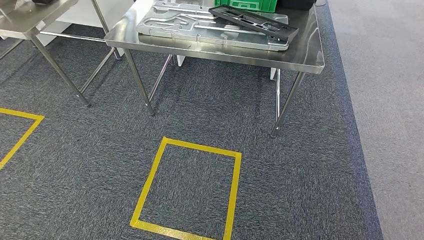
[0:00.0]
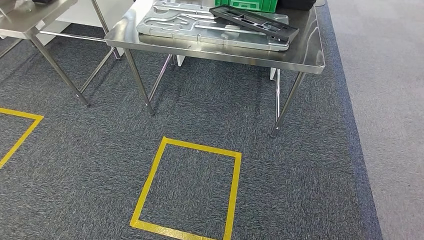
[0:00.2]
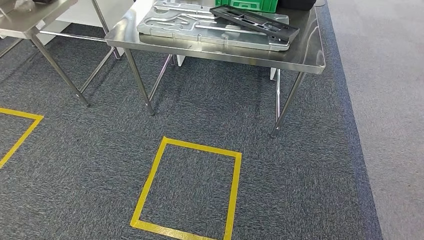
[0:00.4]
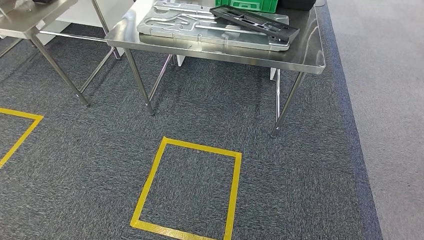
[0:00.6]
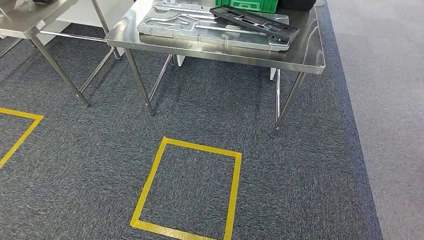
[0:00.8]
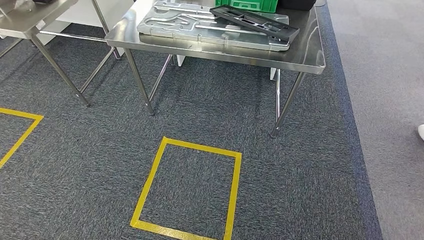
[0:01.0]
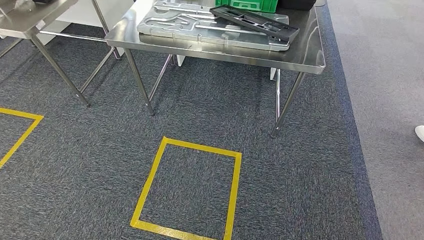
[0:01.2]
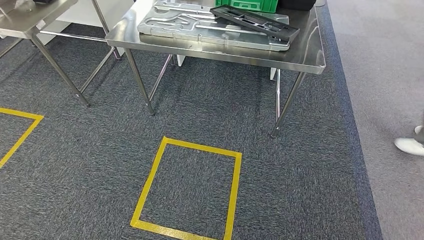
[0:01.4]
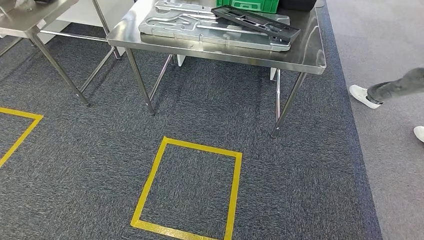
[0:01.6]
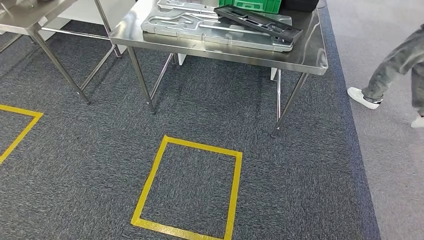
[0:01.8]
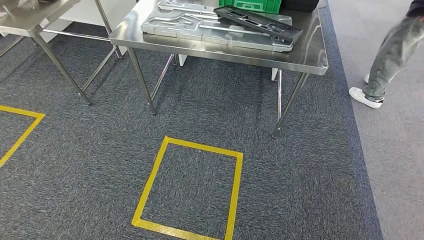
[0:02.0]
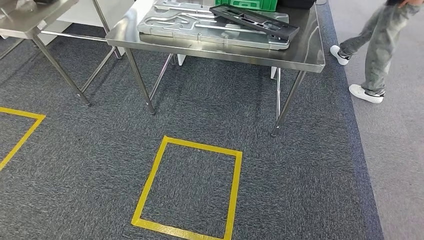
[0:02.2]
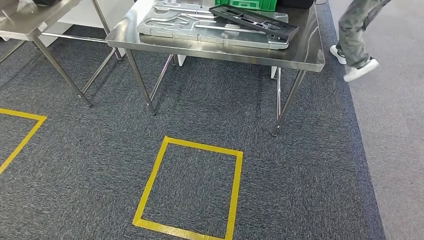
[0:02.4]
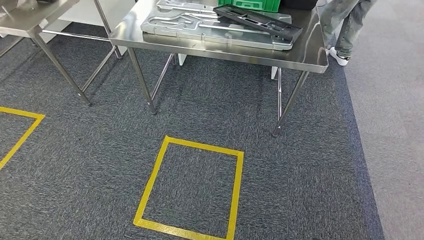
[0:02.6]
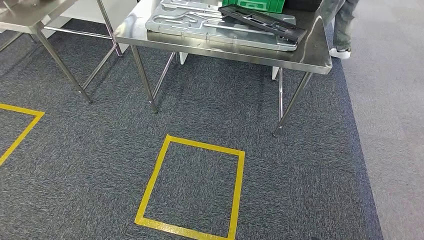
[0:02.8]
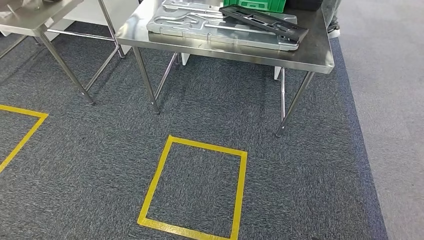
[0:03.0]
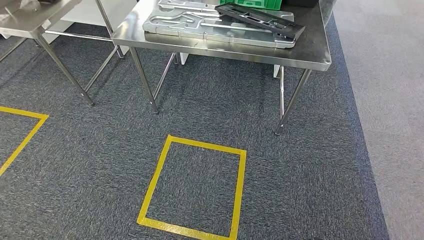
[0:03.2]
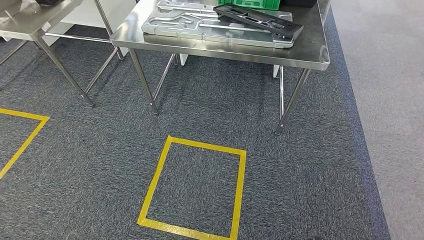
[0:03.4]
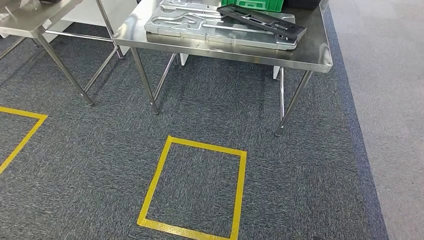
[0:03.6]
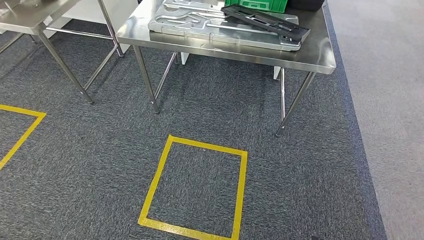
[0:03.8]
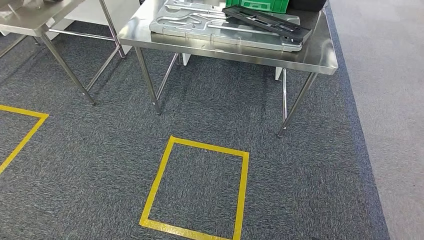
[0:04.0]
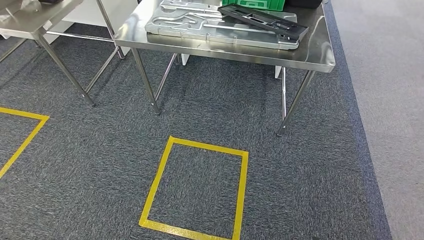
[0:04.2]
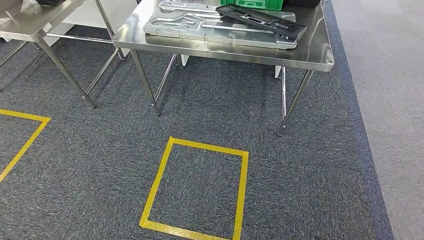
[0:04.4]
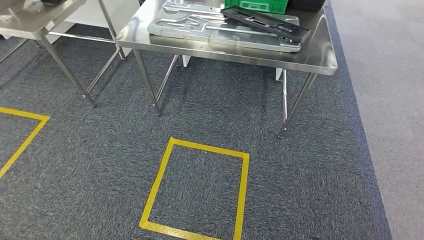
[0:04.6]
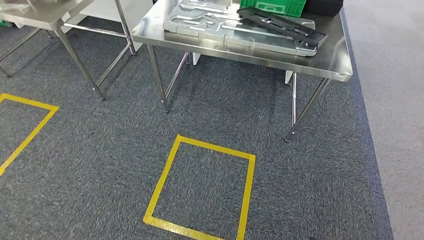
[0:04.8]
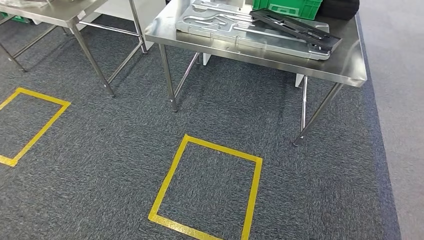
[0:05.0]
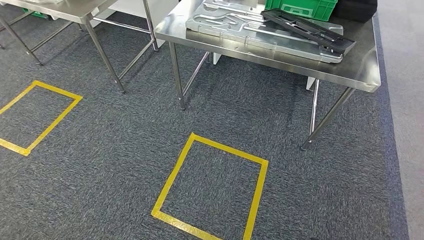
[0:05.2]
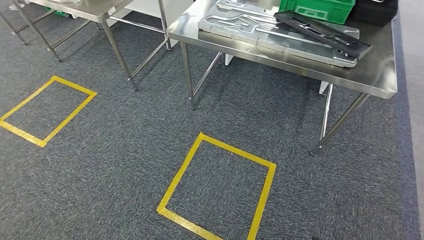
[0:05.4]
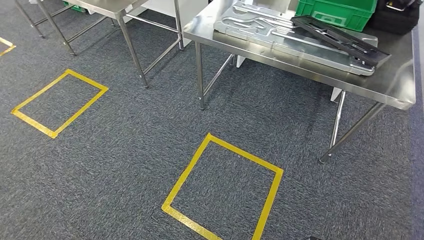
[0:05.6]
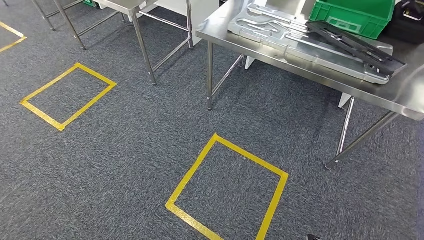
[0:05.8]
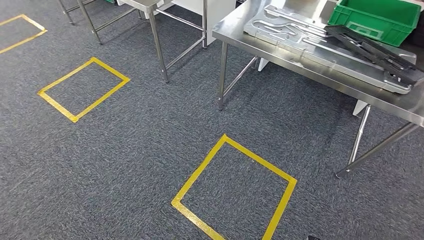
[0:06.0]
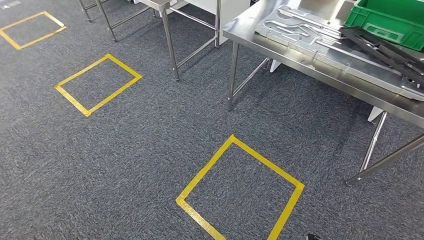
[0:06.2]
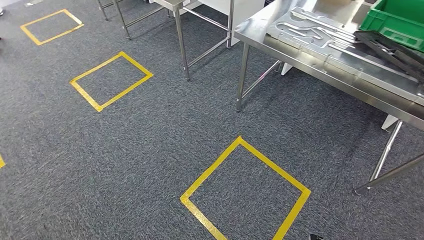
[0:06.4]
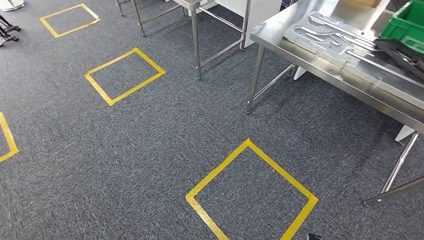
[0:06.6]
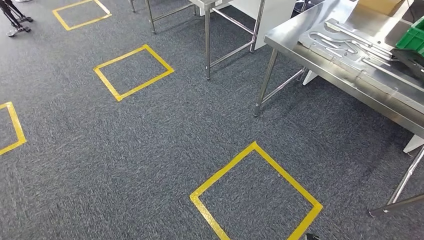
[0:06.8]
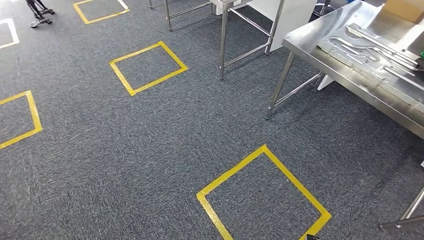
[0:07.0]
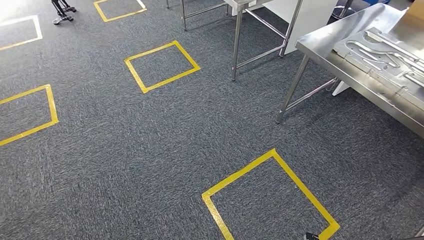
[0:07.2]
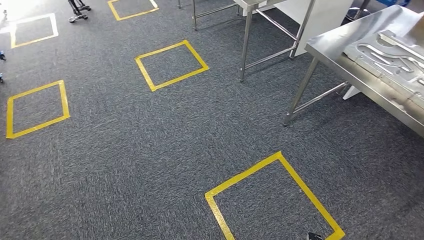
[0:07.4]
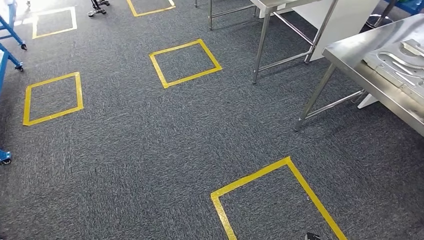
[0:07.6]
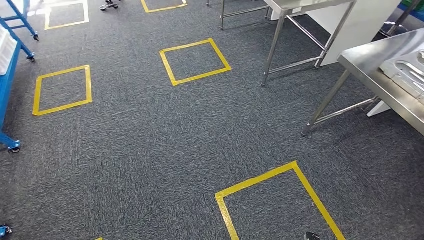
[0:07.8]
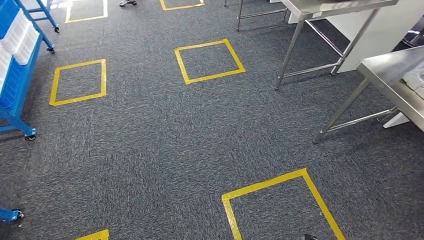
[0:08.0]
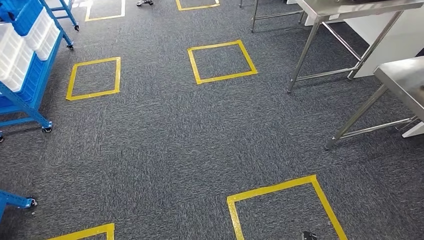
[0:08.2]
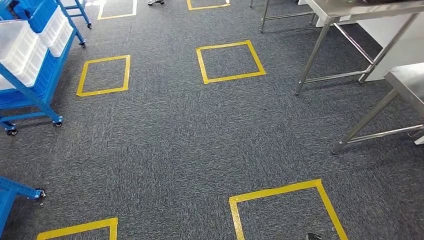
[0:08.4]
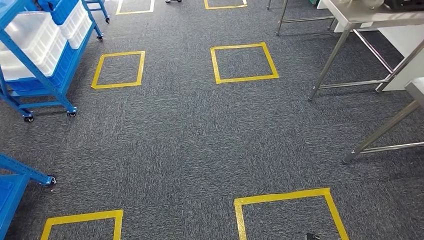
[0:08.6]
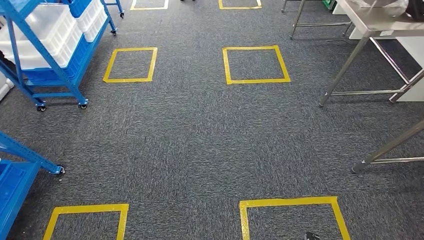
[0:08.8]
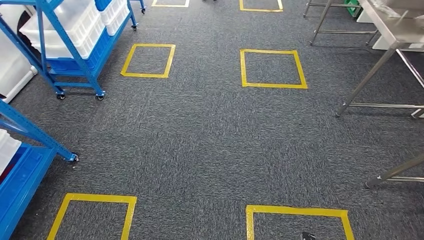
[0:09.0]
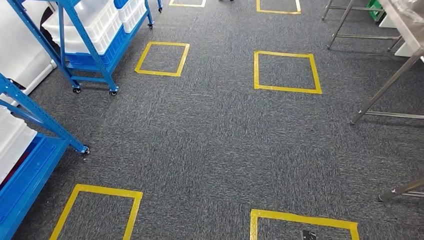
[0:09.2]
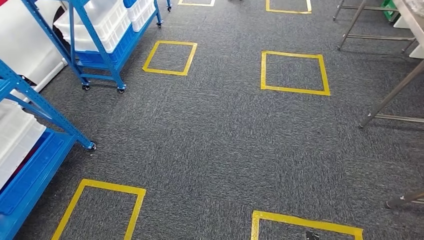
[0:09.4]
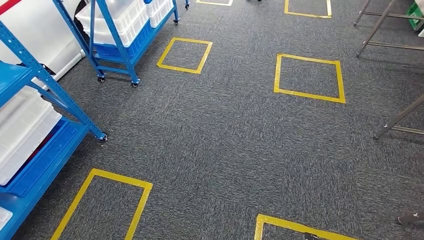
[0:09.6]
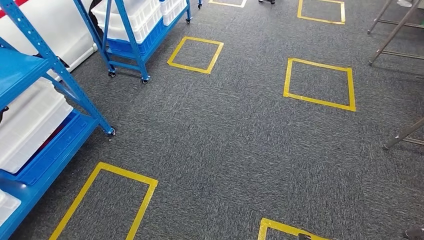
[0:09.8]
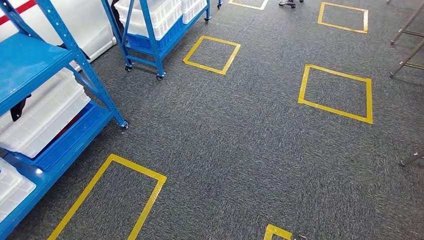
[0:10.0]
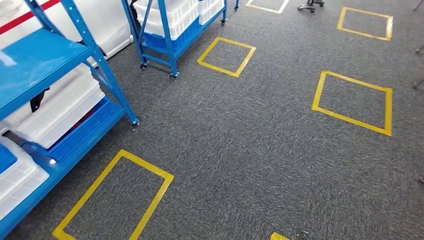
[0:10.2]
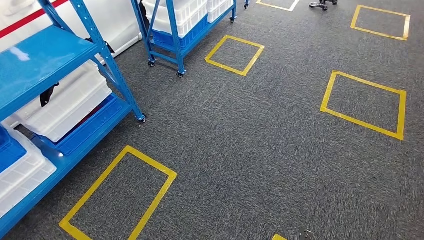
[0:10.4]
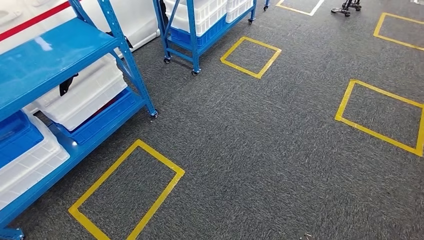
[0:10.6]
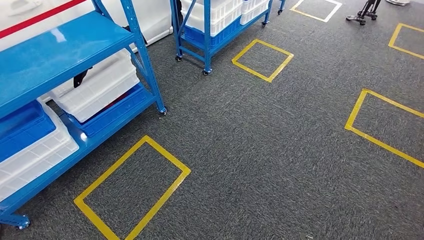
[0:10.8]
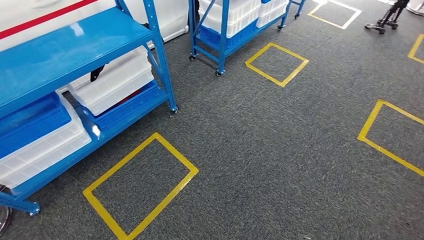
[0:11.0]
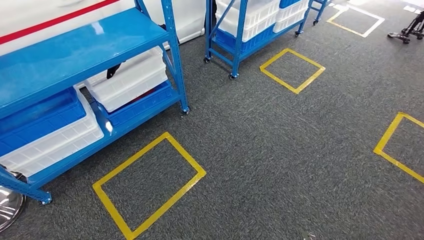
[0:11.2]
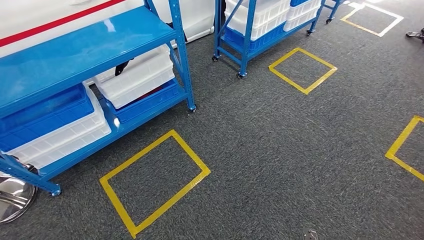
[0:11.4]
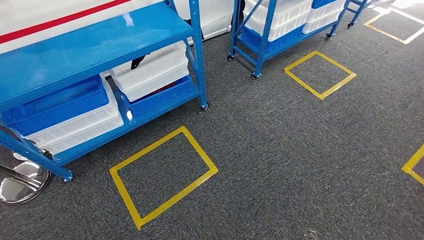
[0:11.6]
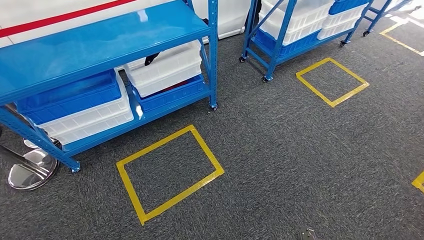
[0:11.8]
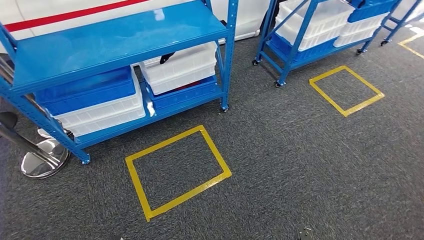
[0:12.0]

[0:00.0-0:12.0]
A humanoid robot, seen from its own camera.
0:00.0 to 0:01.6: The two hands keep their place.
0:01.6 to 0:04.4: Both hands stay about where they are.

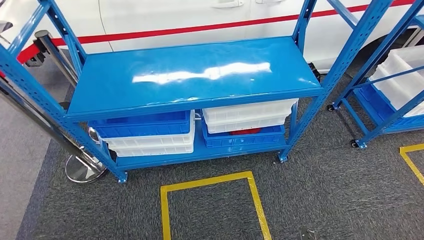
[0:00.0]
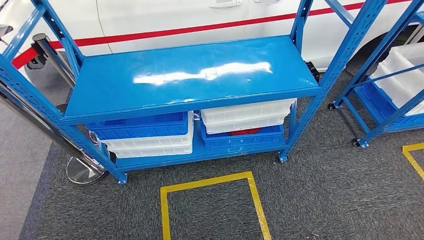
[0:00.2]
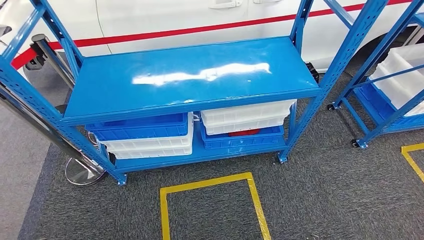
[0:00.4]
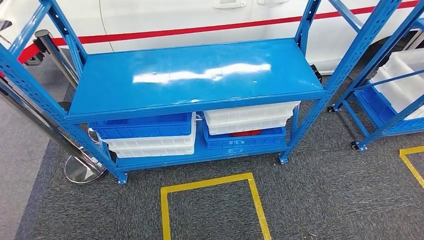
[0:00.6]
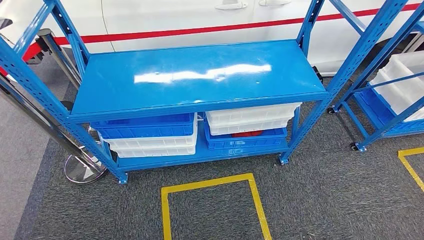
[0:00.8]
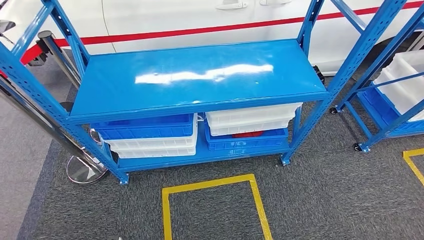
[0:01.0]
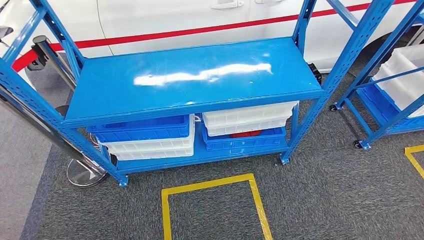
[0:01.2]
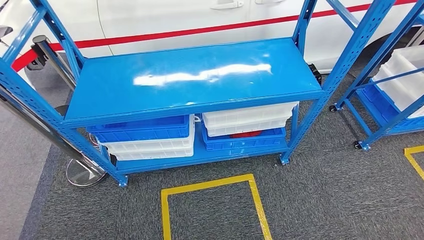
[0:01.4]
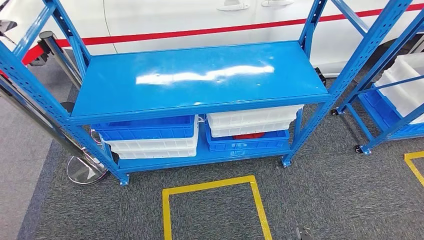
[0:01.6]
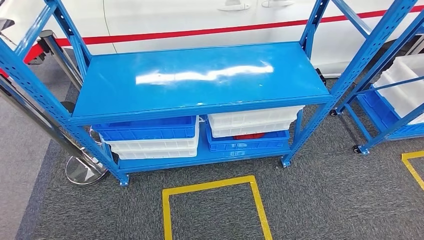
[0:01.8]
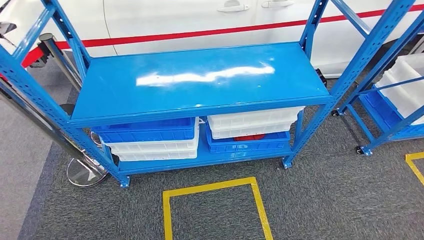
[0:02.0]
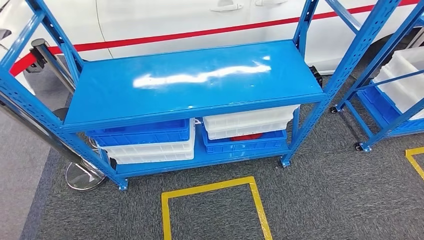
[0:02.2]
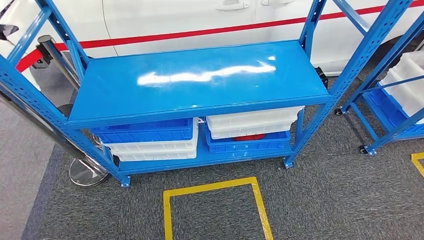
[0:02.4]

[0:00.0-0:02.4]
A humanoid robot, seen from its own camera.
Step, 0:00.0 to 0:02.4: Move to the initial position of the shelf.

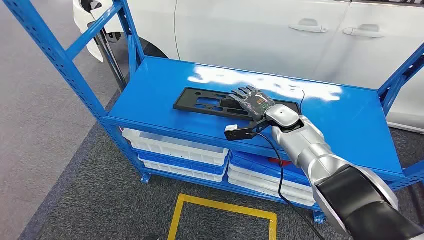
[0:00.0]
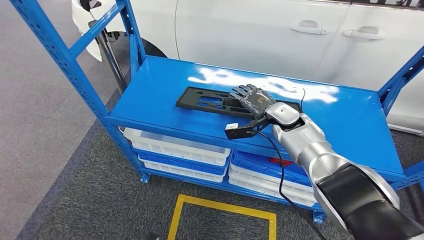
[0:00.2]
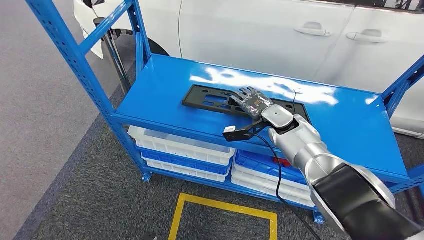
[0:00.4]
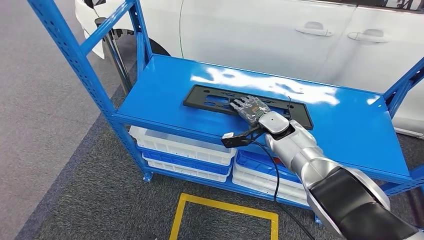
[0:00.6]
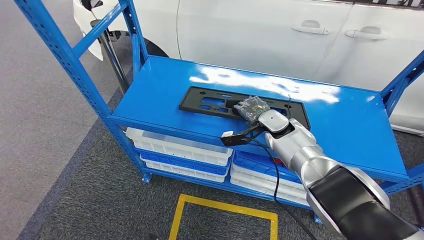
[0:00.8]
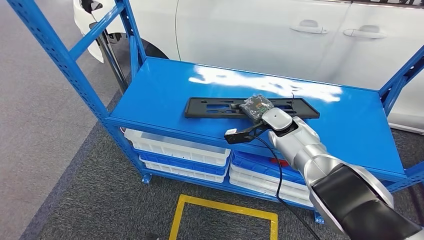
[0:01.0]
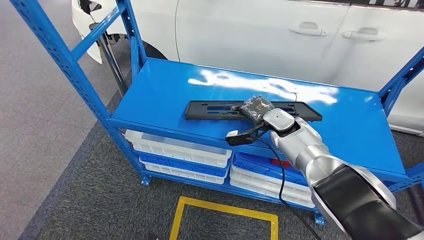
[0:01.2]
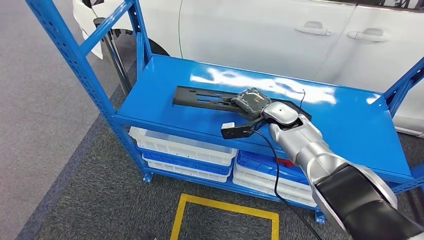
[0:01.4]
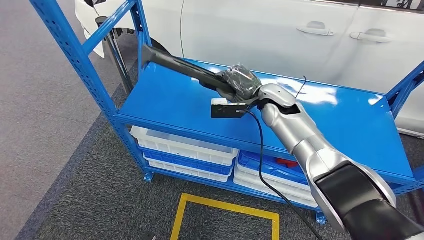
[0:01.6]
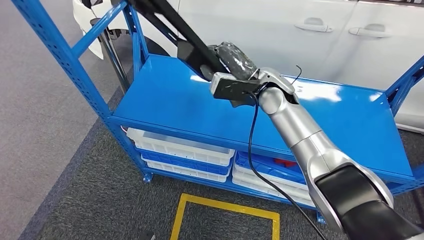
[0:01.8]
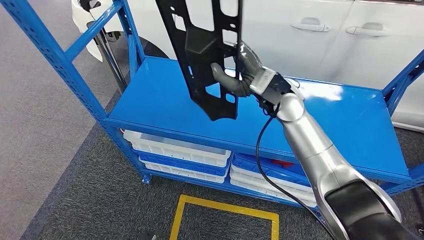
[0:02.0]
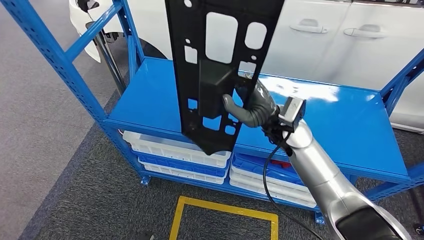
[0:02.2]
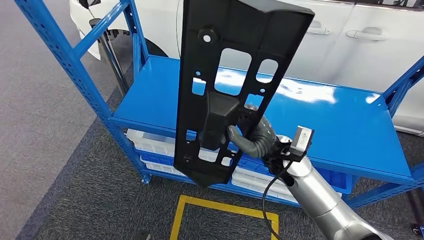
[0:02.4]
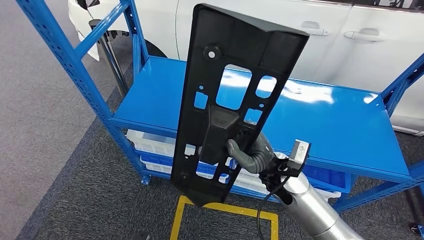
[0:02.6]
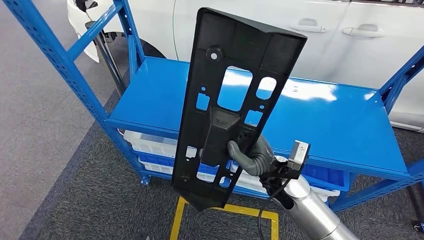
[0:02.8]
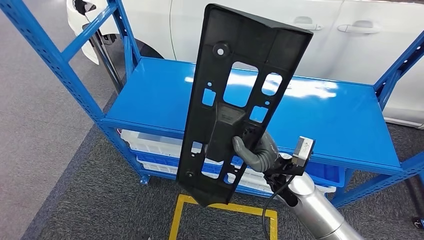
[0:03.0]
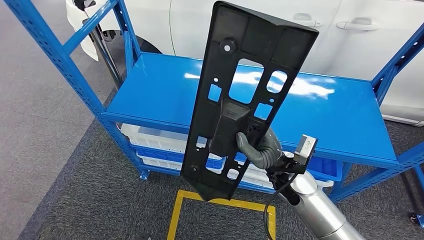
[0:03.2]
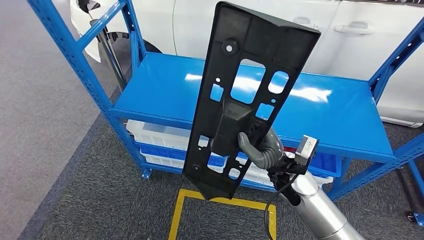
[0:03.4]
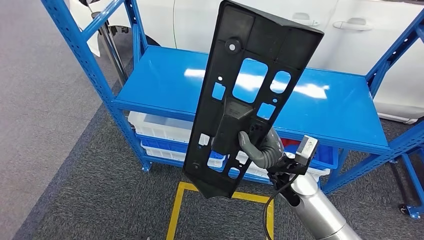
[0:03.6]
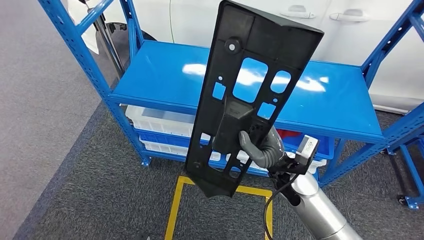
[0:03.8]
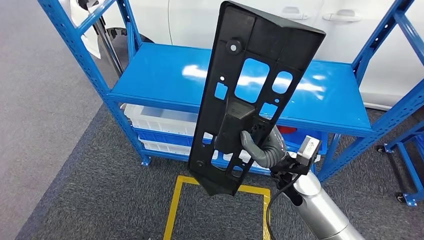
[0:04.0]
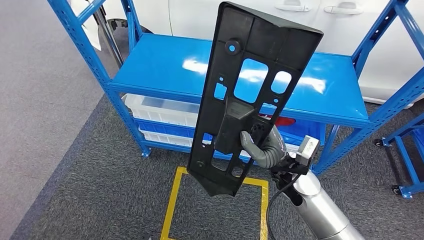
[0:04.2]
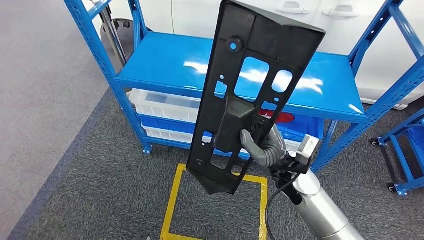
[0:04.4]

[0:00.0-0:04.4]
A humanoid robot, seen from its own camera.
Step, 0:00.0 to 0:02.8: Pick up the large material from the shelf.
